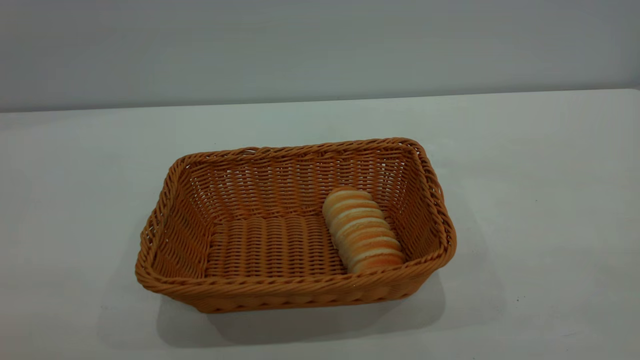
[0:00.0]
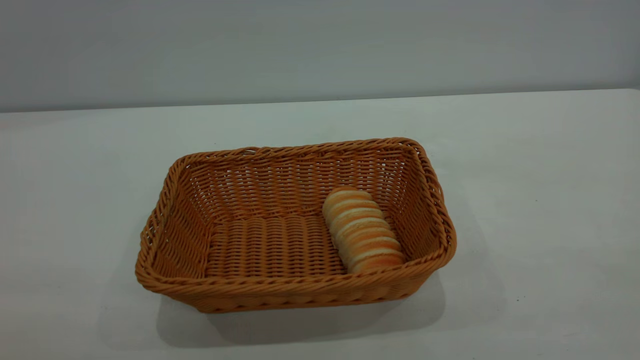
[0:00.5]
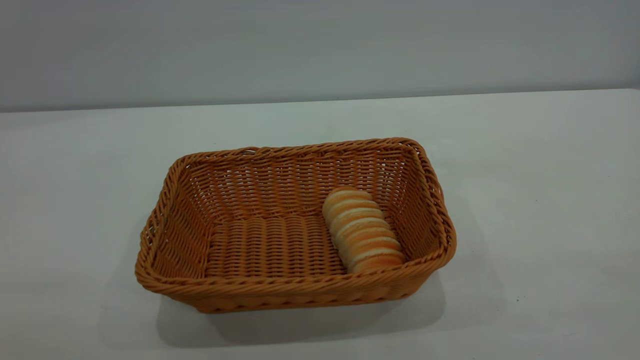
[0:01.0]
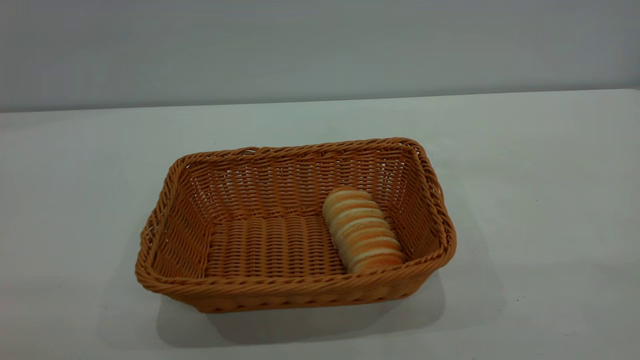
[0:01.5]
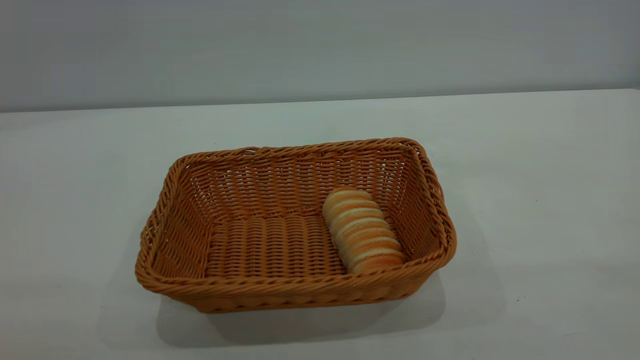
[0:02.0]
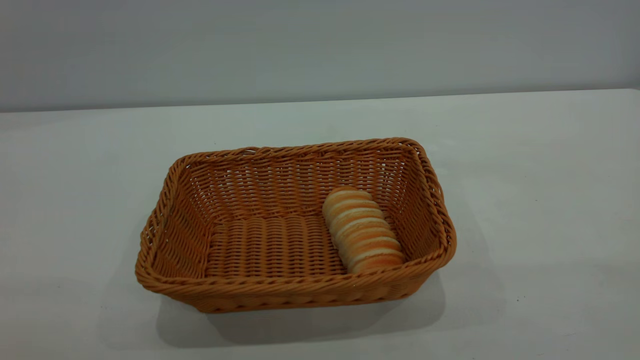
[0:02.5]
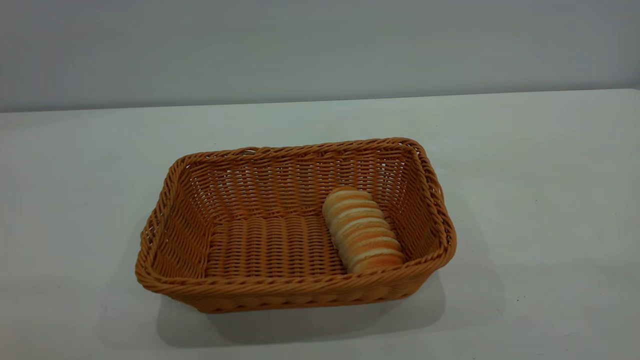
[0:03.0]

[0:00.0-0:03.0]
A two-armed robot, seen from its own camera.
Task of the whole recording: One hand grasps the yellow basket and places it in the middle of the table, while the other hand picks up the long bread and puts it into the yellow basket.
0:01.5 to 0:03.0: Both grippers stay about where they are.

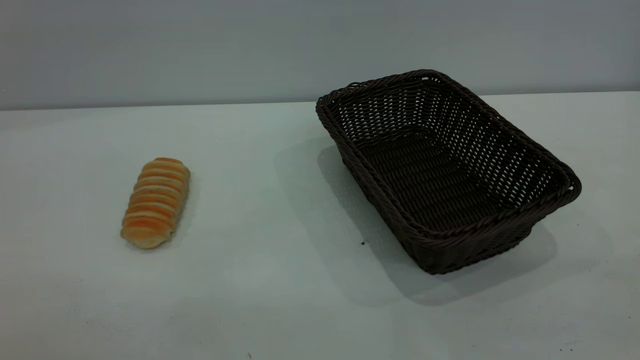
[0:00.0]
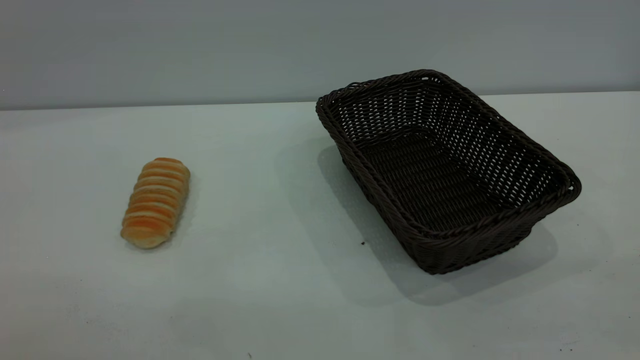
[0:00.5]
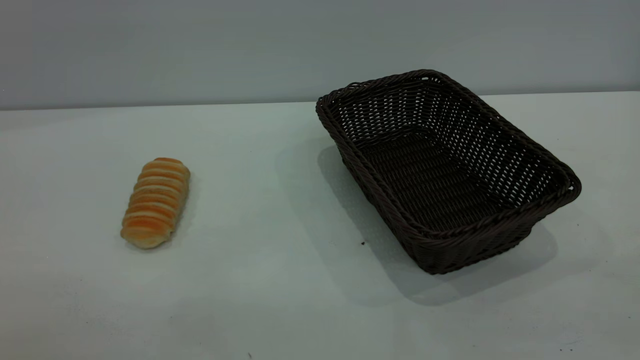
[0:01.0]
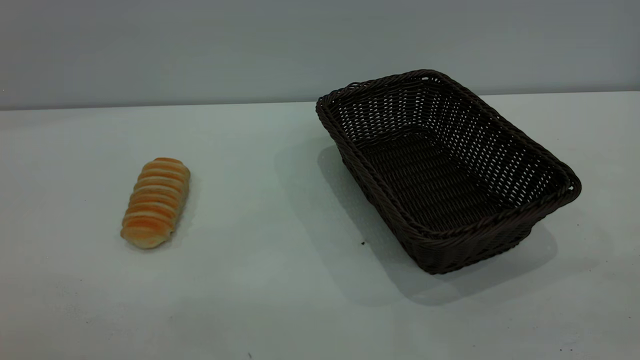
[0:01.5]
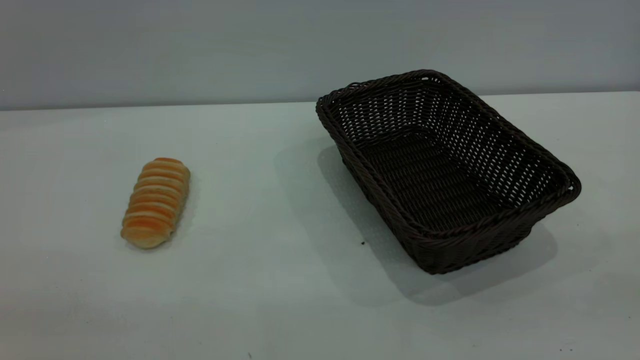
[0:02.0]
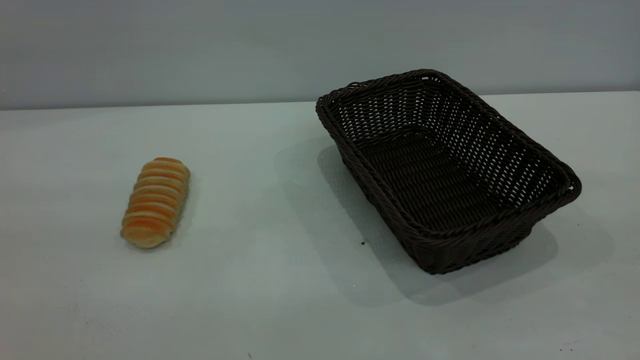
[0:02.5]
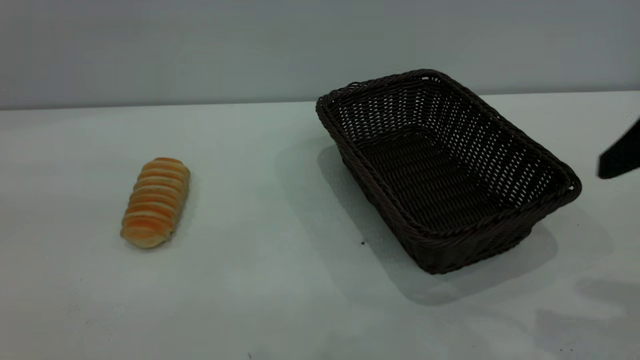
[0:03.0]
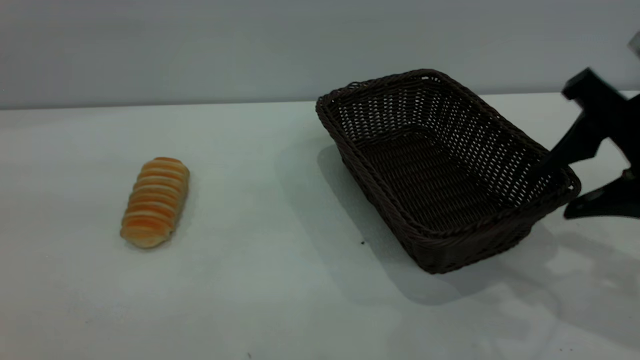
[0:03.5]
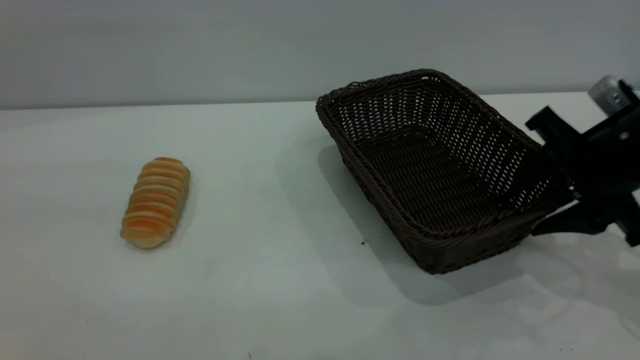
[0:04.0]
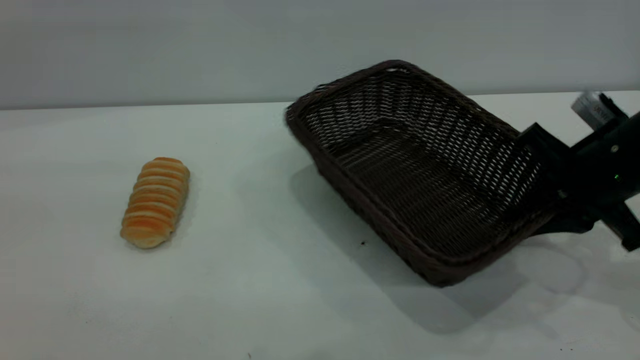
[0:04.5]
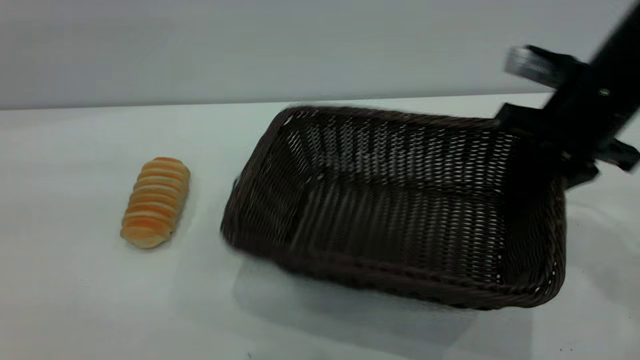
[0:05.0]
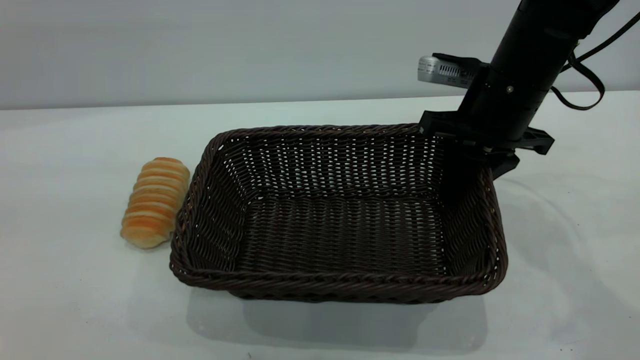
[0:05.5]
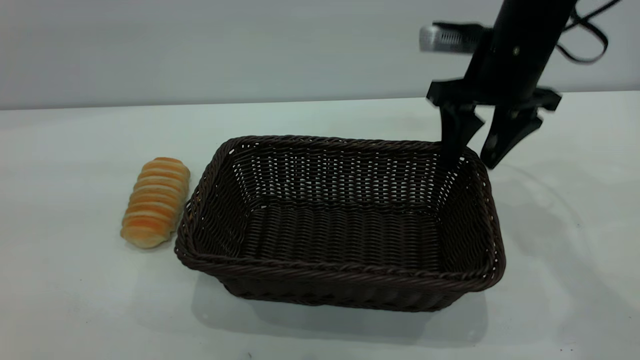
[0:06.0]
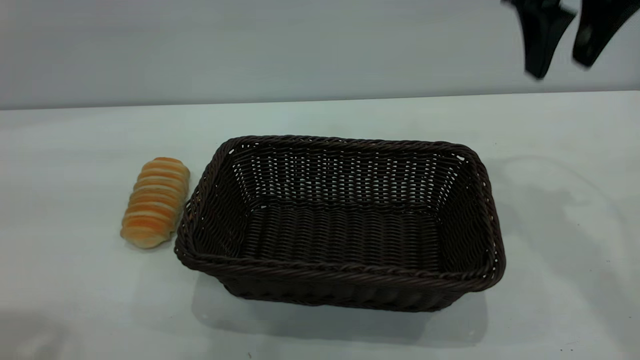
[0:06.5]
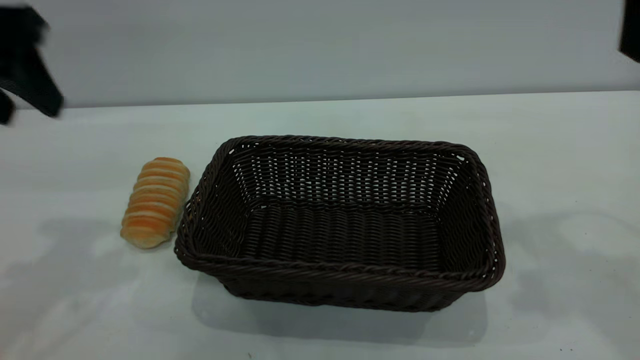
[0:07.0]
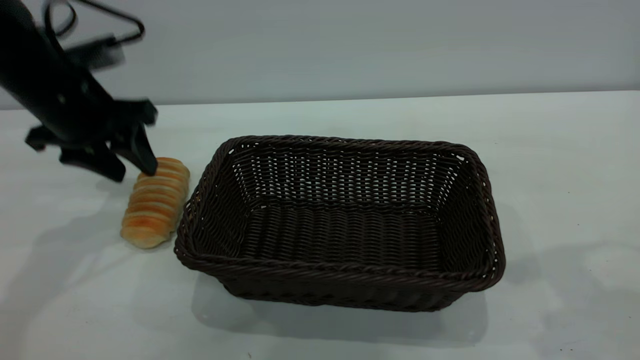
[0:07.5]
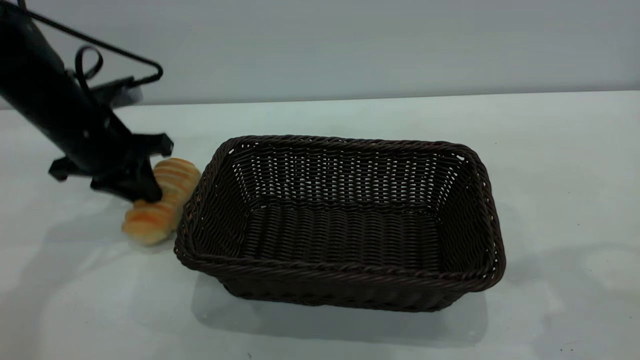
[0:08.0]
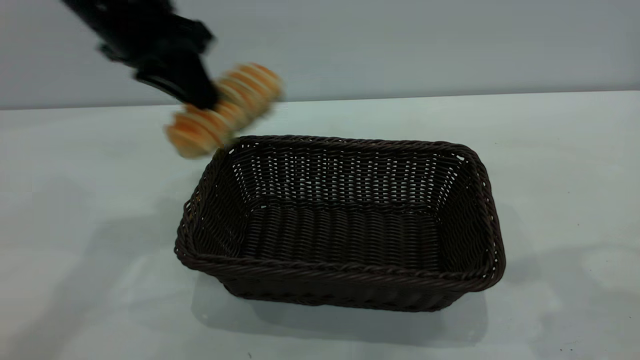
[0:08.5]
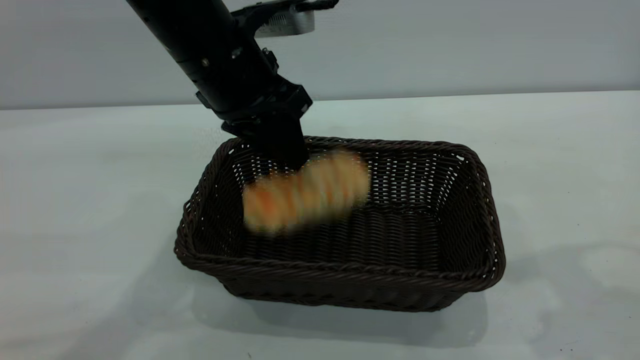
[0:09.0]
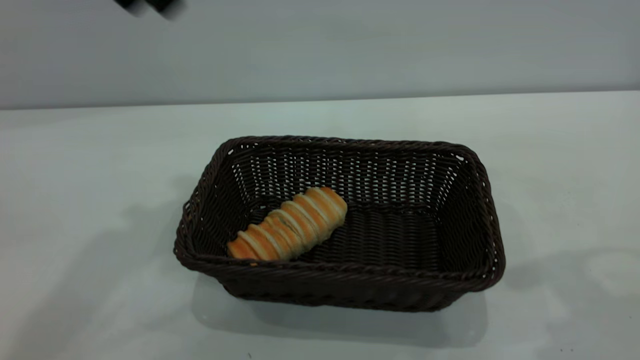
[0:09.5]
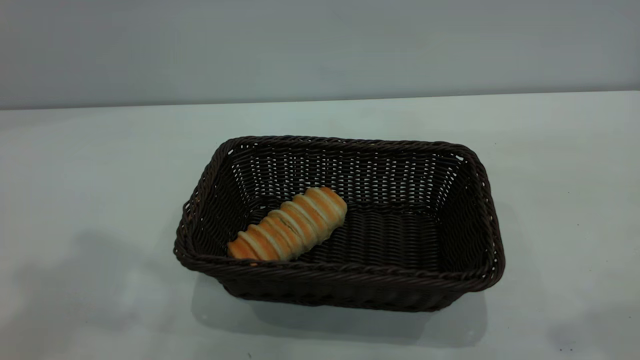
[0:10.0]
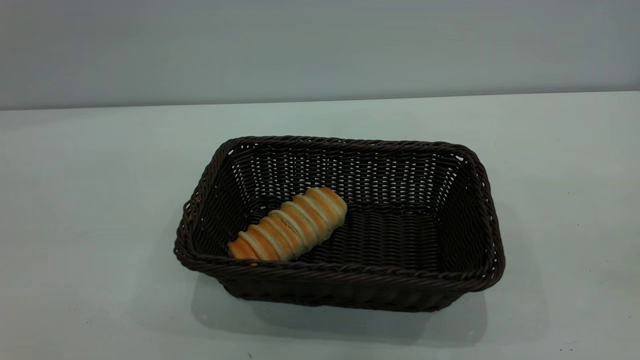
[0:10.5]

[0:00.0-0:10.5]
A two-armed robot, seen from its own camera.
Task of the whole recording: One hand grasps the black basket and places it in the middle of the table, while the other hand picks up the long bread and puts it into the black basket.
Step, 0:00.0 to 0:06.0: Move the basket to the center of view.
Step, 0:08.5 to 0:09.0: place the bread into the basket.
0:02.0 to 0:04.0: The right gripper moves forward and downward, roughly 40 cm.
0:04.0 to 0:06.5: The left gripper is displaced forward by some 5 cm, while the right gripper goes some 20 cm upward and forward, and closes, then reopens.
0:06.5 to 0:08.5: The right gripper travels backward by some 15 cm; the left gripper moves forward, to the right and downward, roughly 25 cm, and closes up.
0:08.5 to 0:10.5: The left gripper is displaced backward and upward by about 30 cm, and opens; the right gripper heads backward, covering roughly 20 cm.
